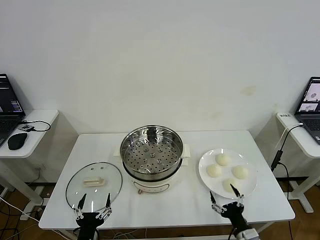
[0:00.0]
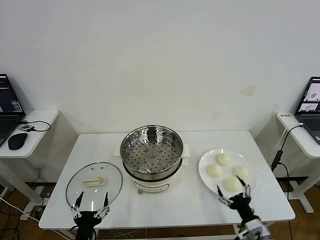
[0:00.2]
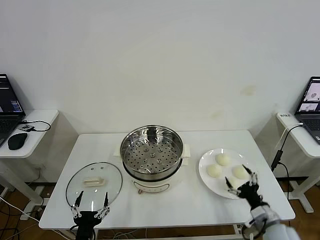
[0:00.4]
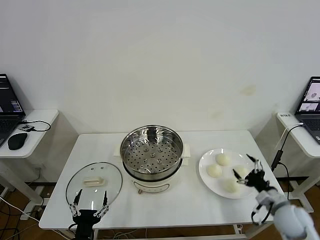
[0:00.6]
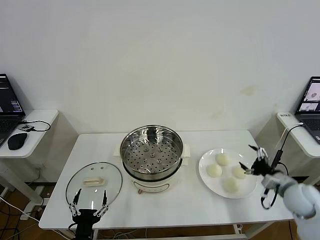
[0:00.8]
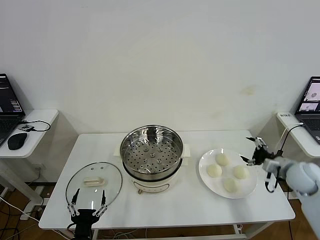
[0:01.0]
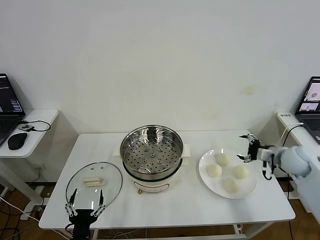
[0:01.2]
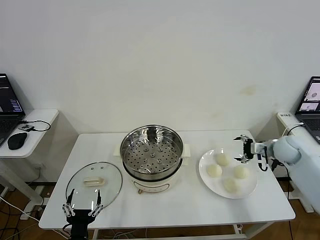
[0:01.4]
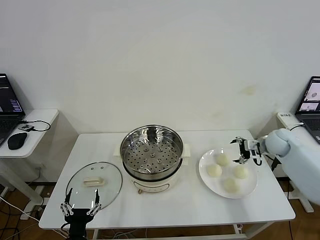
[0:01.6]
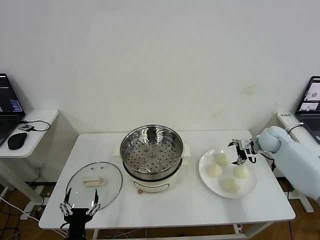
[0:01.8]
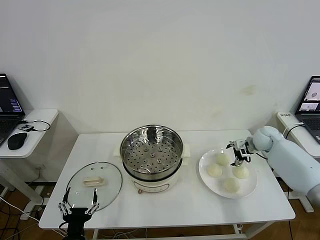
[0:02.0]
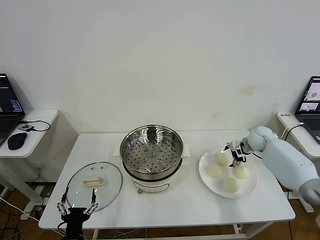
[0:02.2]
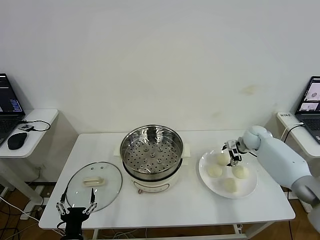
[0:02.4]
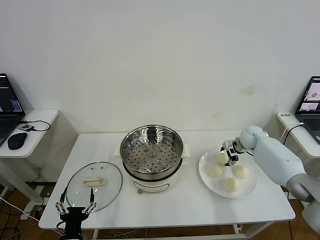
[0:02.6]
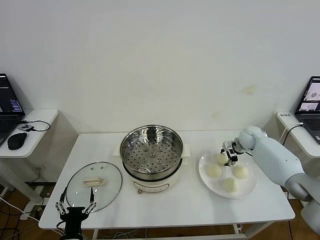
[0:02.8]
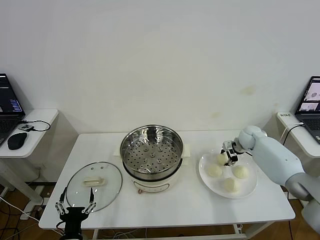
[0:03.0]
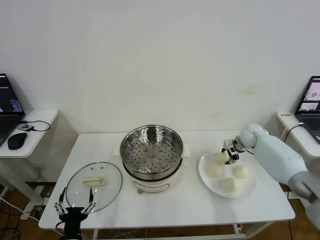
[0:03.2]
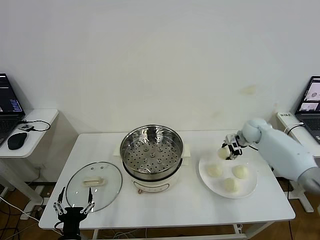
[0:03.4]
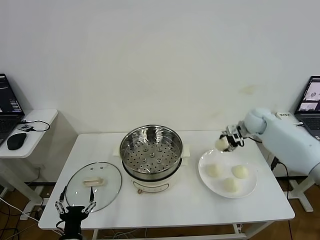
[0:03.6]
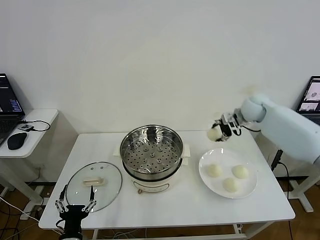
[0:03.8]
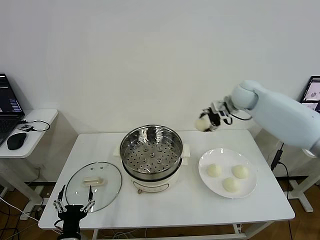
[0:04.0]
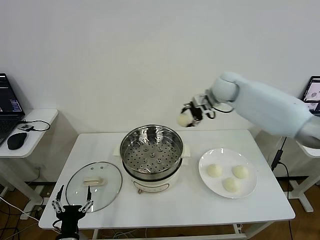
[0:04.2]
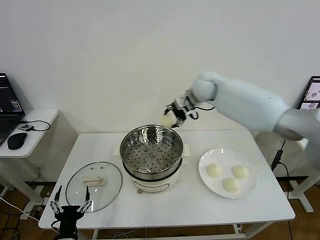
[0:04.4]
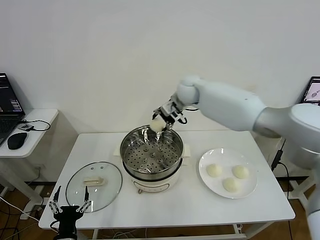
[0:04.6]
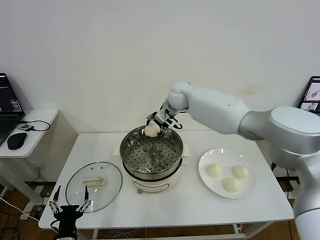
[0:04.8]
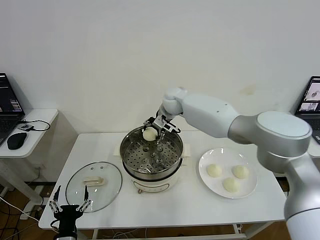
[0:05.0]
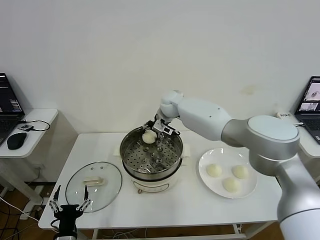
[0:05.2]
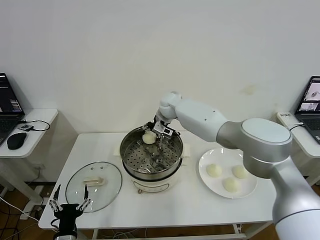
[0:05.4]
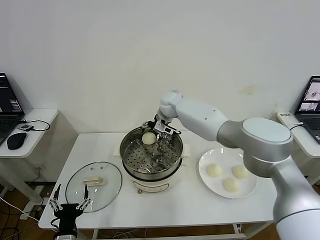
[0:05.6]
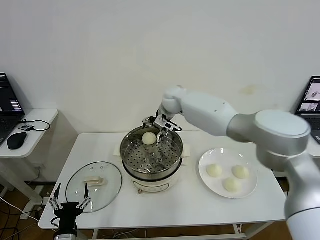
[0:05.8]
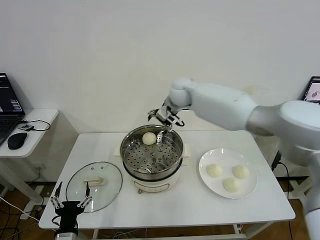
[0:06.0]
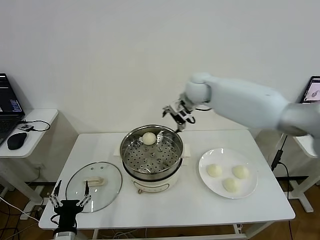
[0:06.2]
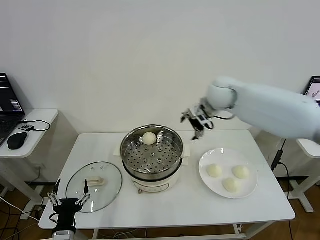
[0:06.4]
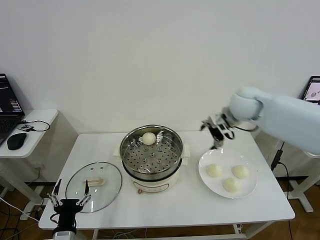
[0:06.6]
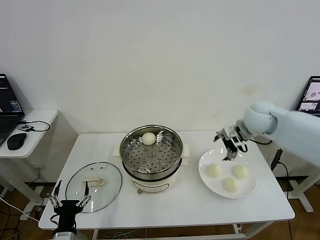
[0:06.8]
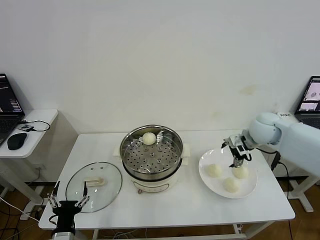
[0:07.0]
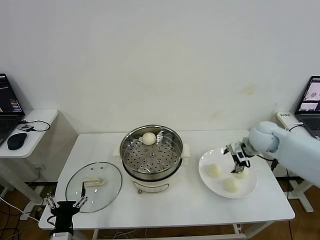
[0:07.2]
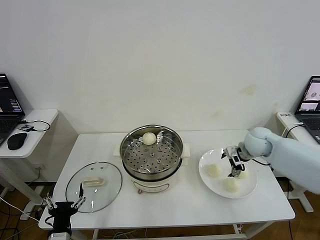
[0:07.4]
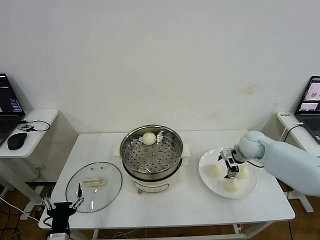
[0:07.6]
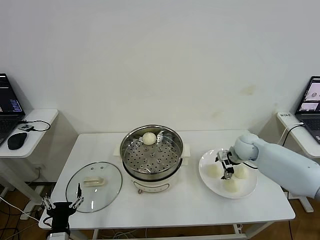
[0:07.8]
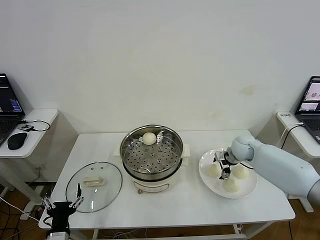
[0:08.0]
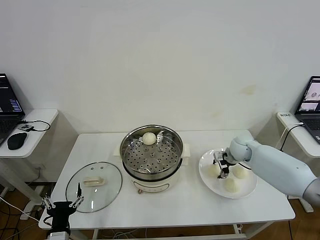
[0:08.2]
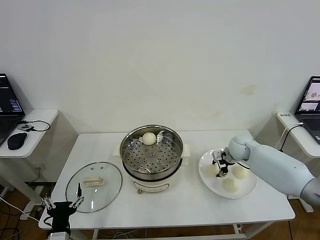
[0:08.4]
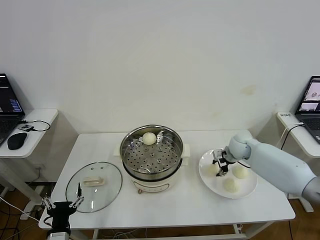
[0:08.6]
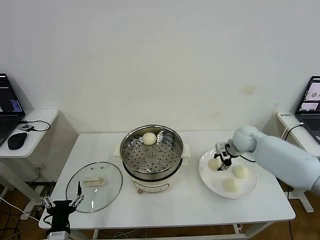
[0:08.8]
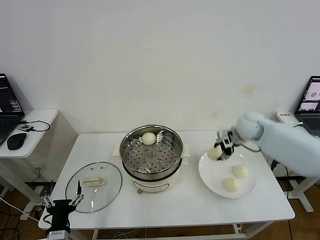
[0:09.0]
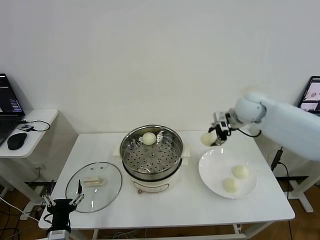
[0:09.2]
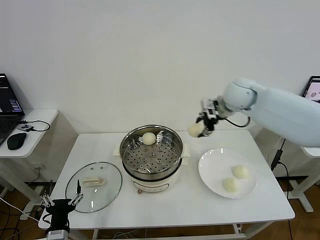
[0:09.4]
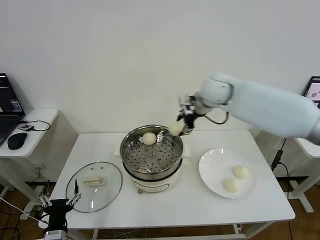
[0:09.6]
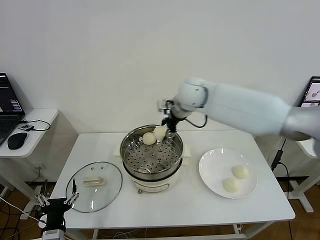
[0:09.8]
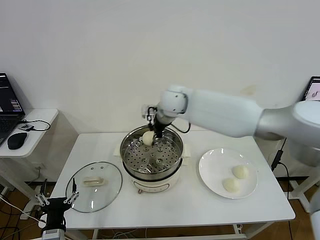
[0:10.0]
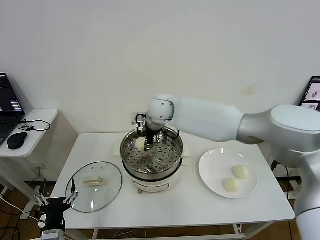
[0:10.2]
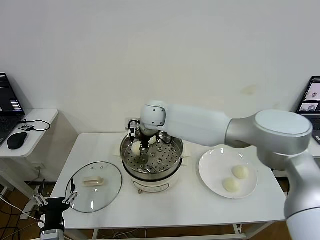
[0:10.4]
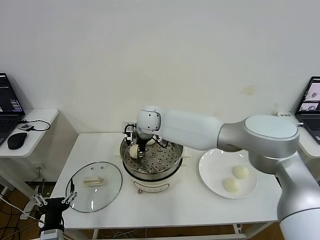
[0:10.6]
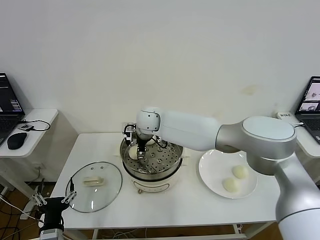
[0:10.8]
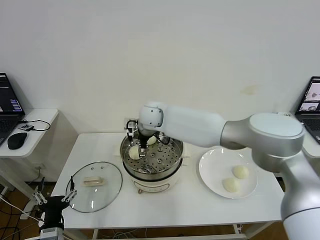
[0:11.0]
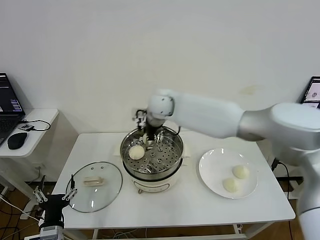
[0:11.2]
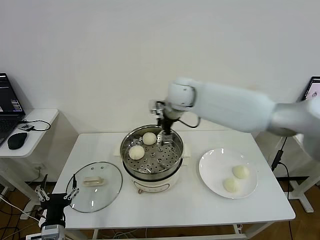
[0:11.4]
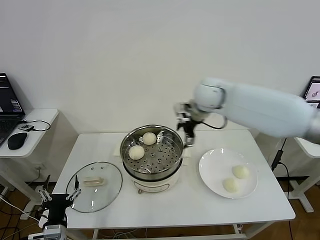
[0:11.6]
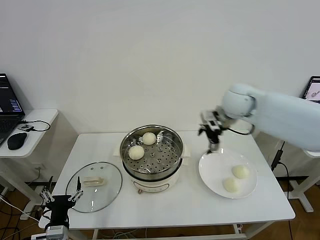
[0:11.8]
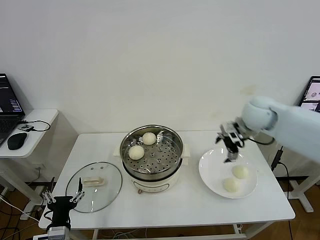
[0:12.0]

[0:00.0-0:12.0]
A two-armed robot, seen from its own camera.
Step, 0:00.0 to 0:03.0: Grasp the baozi in the plate with right gripper.
Step, 0:03.2 to 0:05.4: Place the baozi on the steamer with right gripper.
Step, 0:05.6 to 0:08.2: Grasp the baozi in the plate with right gripper.
Step, 0:08.4 to 0:10.8: Place the baozi on the steamer with right gripper.
0:01.6 to 0:03.0: The right gripper goes about 10 cm forward and to the left, and closes up.
0:03.0 to 0:04.4: The right gripper shifts about 35 cm to the left and upward.
0:04.4 to 0:06.0: The right gripper goes downward and returns, some 10 cm each way, and opens up.
0:06.0 to 0:07.6: The right gripper travels to the right, downward and backward by approximately 30 cm.
0:07.6 to 0:09.0: The right gripper moves upward, approximately 10 cm, and closes up.
0:09.0 to 0:10.4: The right gripper travels to the left by approximately 35 cm.
0:10.4 to 0:12.0: The right gripper is displaced to the right by roughly 35 cm, and opens up.

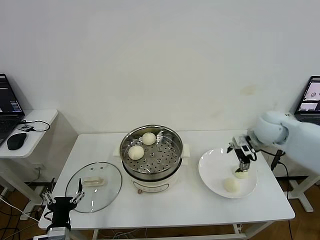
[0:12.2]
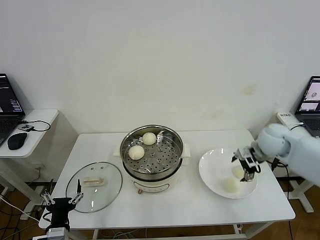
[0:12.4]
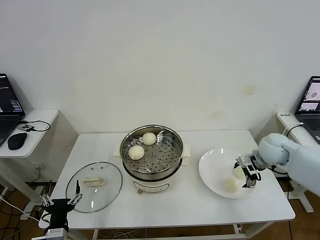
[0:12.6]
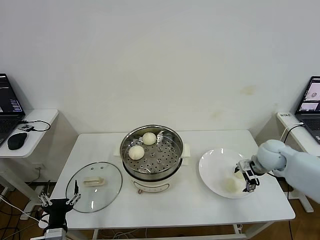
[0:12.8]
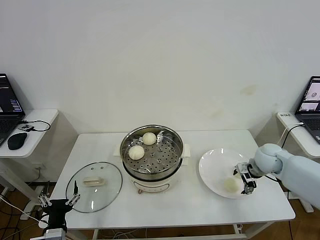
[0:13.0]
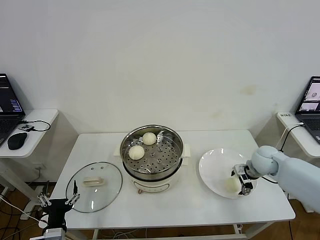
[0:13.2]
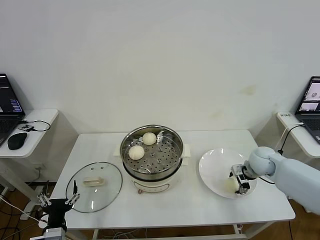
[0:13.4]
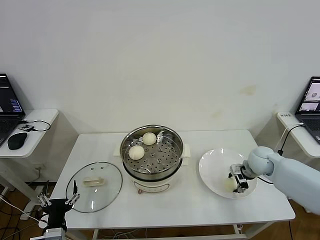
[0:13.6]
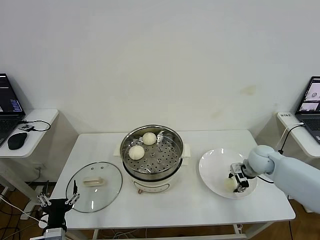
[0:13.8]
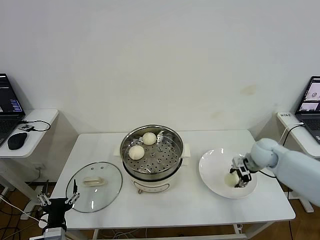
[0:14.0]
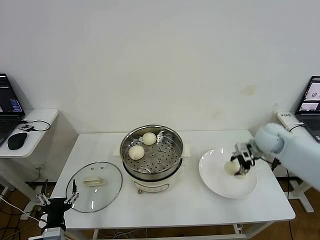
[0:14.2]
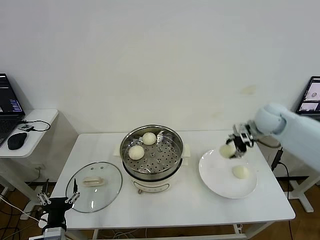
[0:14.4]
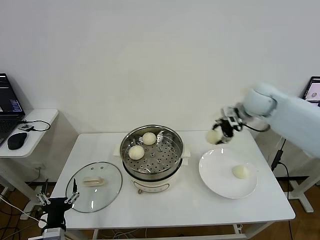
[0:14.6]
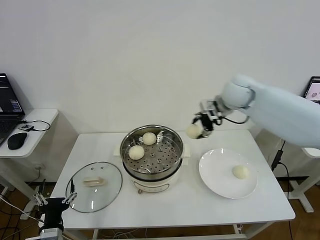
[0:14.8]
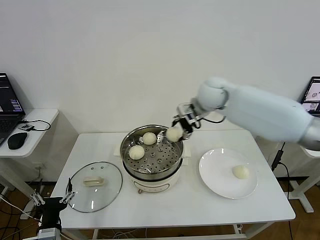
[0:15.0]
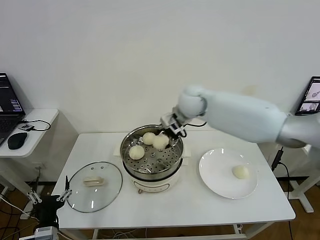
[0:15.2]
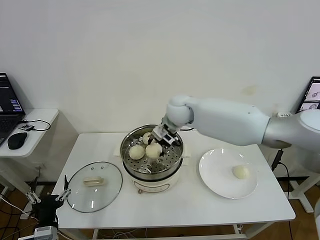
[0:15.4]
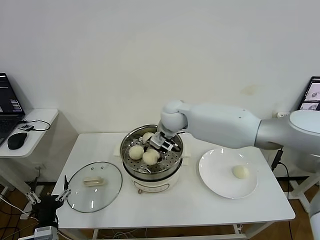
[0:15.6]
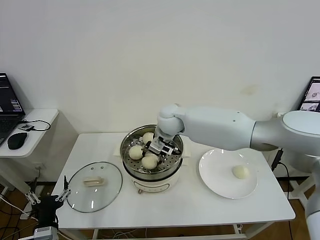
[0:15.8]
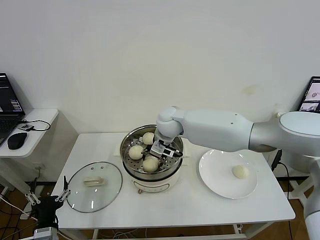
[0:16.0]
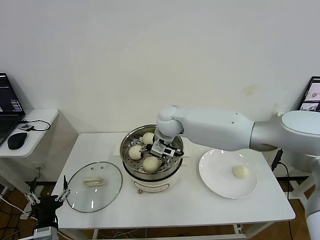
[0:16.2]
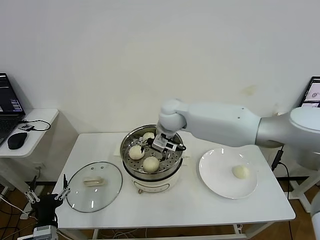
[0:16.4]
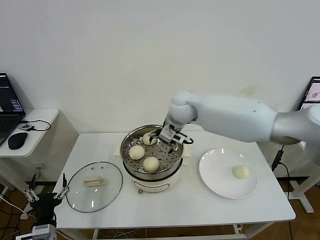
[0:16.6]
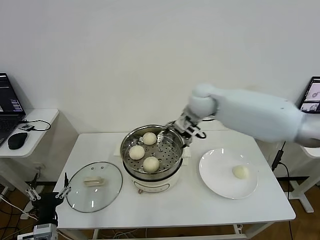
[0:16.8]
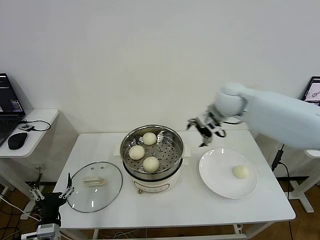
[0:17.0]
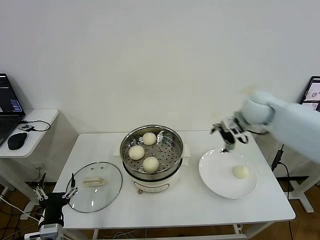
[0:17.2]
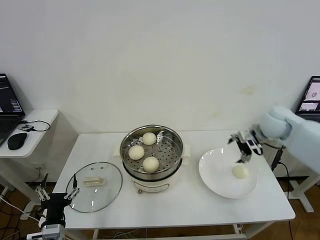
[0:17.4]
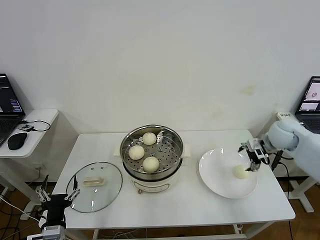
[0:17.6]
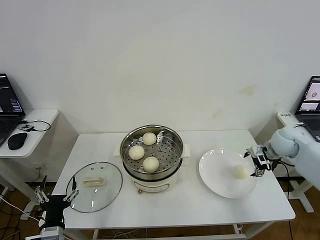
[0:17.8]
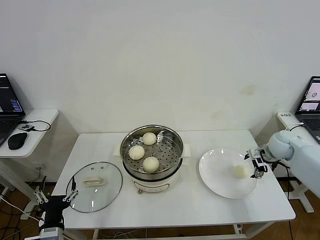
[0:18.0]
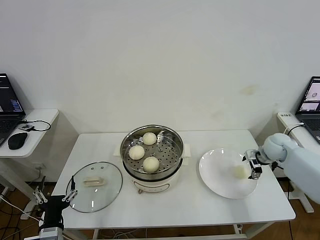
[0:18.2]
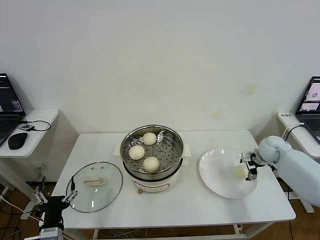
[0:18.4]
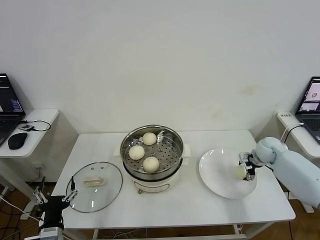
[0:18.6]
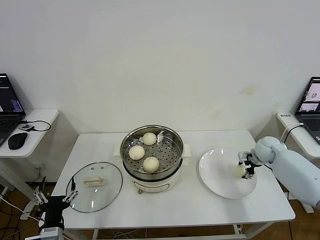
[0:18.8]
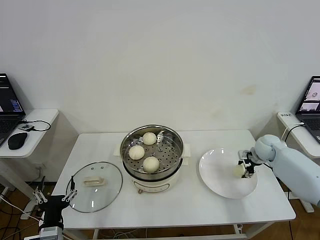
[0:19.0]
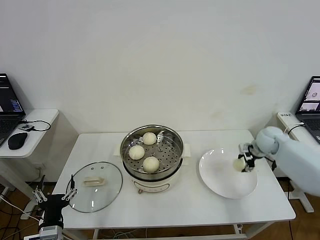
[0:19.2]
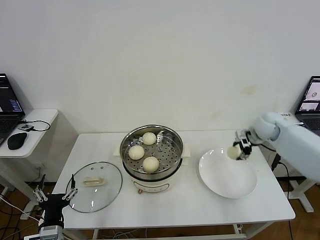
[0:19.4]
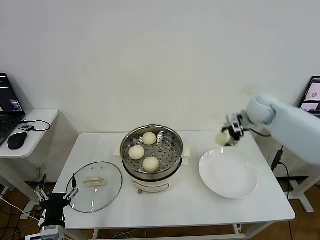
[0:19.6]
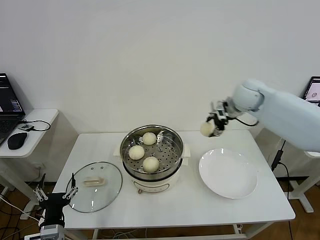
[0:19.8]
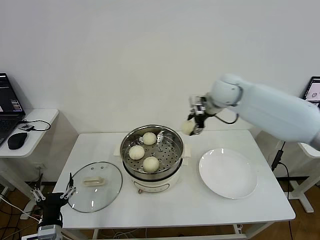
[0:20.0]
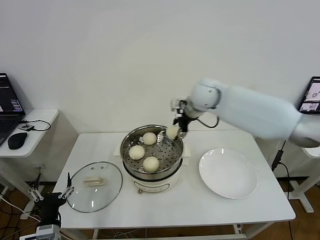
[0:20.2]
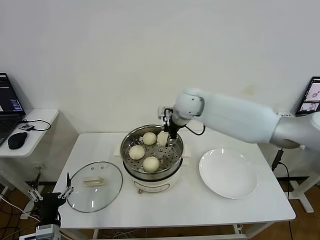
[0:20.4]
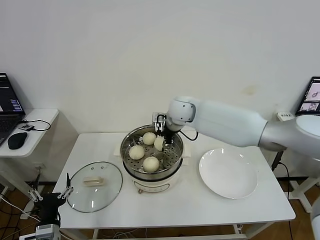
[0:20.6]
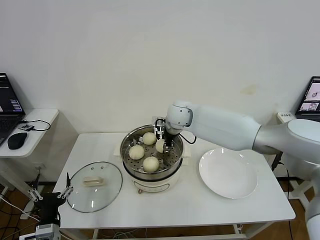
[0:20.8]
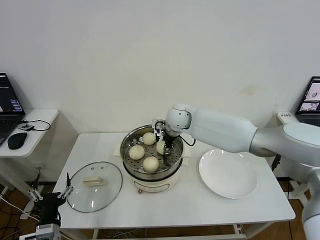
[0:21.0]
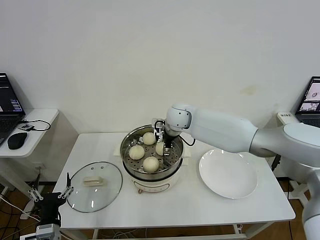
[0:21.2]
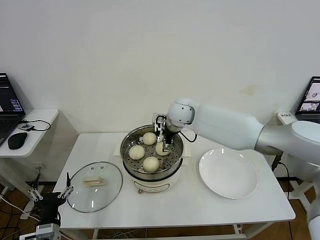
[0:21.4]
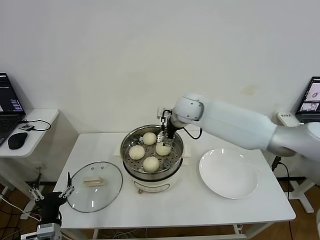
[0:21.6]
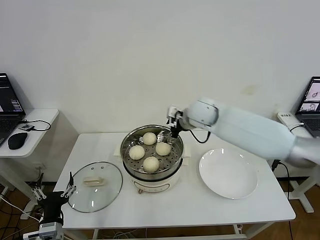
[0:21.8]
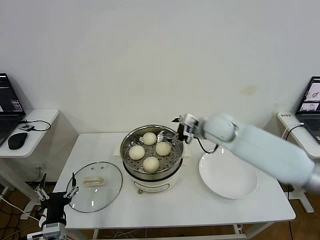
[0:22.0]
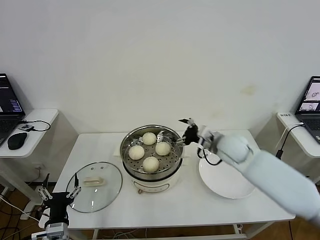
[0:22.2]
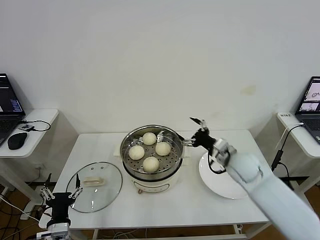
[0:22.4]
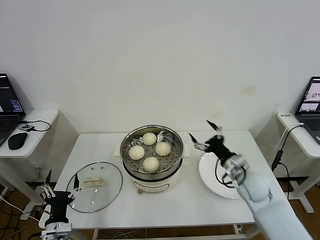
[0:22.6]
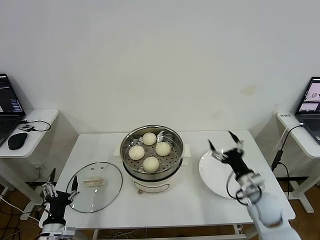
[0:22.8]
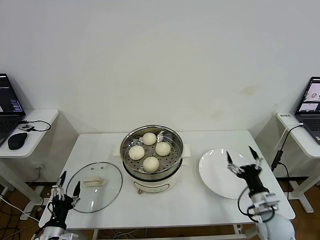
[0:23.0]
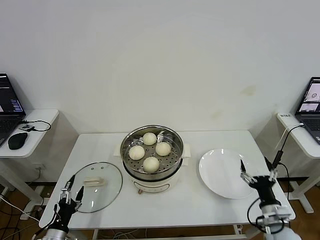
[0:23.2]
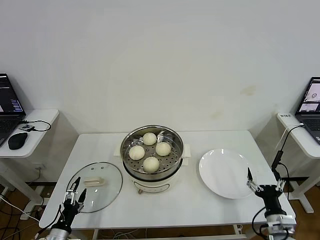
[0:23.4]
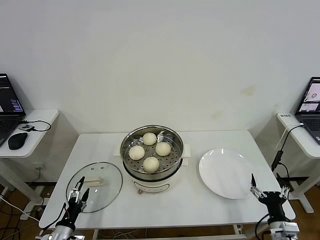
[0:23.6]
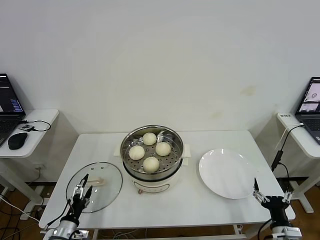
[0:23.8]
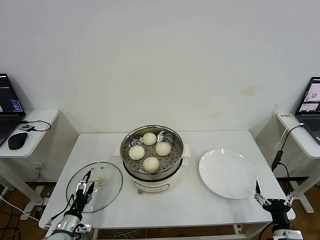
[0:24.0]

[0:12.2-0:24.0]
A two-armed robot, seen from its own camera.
Step, 0:12.2 to 0:13.6: Grasp the baozi in the plate with right gripper.
Step, 0:13.8 to 0:16.2: Place the baozi on the steamer with right gripper.
Step, 0:16.4 to 0:19.0: Grasp the baozi in the plate with right gripper.
Step, 0:19.2 to 0:21.4: Place the baozi on the steamer with right gripper.
0:12.2 to 0:13.6: The right gripper moves downward, some 15 cm, and closes its fingers.
0:13.6 to 0:15.2: The right gripper goes some 35 cm to the left and upward.
0:15.2 to 0:16.6: The right gripper opens its fingers.
0:16.6 to 0:18.2: The right gripper moves to the right and downward, some 40 cm.
0:18.2 to 0:19.6: The right gripper moves upward and to the left, some 20 cm, and closes up.
0:19.6 to 0:21.0: The right gripper moves to the left, some 25 cm.
0:21.0 to 0:22.6: The right gripper goes about 30 cm to the right, backward and downward, and opens.
0:22.6 to 0:24.0: The right gripper shifts approximately 25 cm backward, downward and to the right. The left gripper moves downward, roughly 5 cm.
